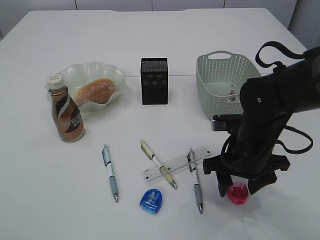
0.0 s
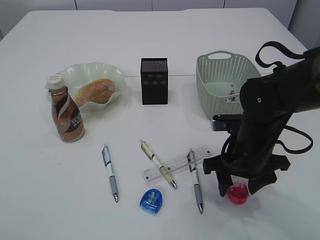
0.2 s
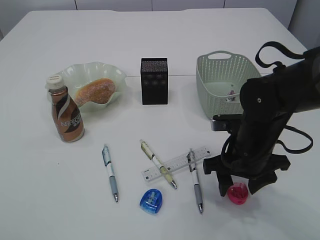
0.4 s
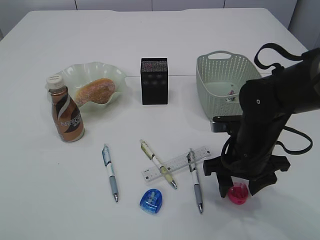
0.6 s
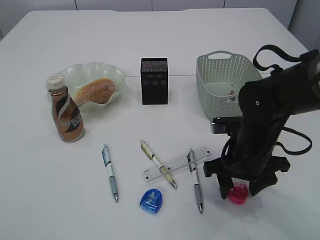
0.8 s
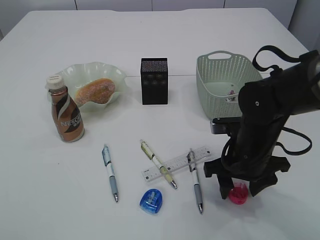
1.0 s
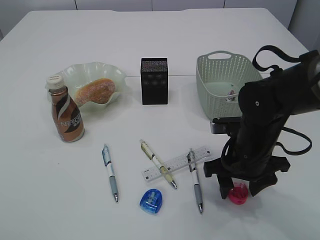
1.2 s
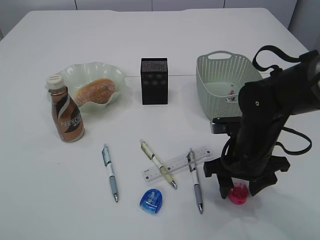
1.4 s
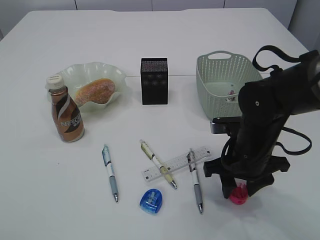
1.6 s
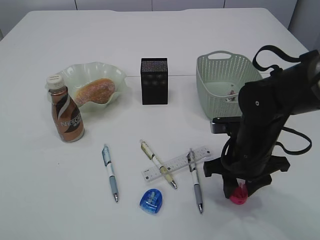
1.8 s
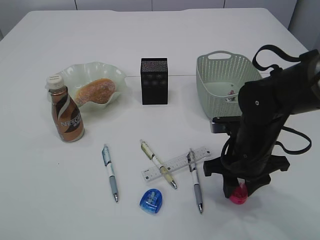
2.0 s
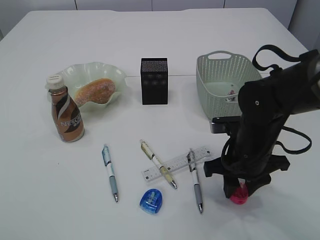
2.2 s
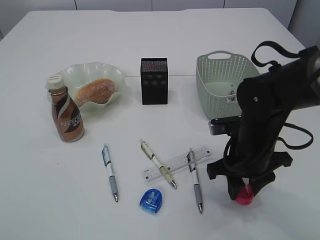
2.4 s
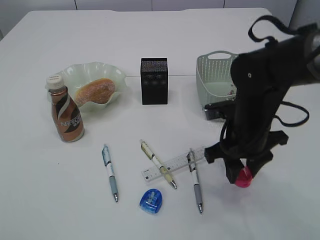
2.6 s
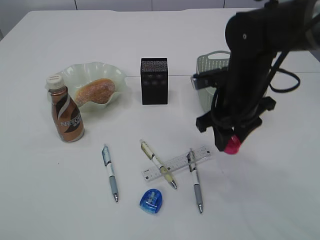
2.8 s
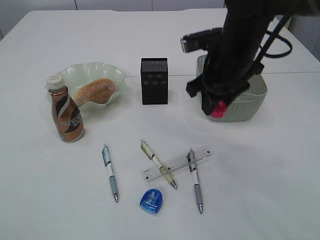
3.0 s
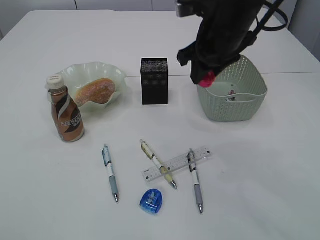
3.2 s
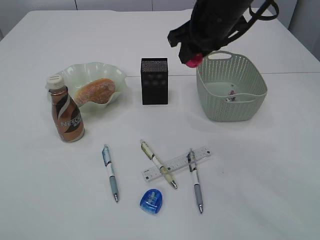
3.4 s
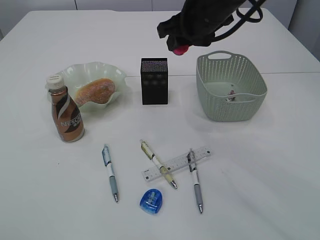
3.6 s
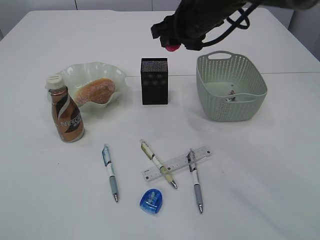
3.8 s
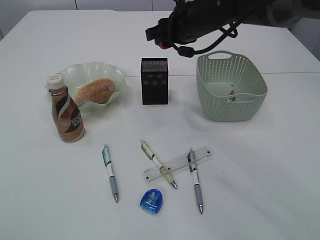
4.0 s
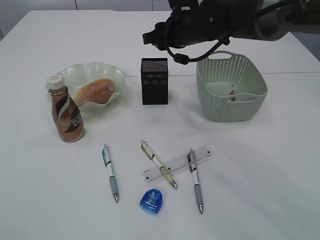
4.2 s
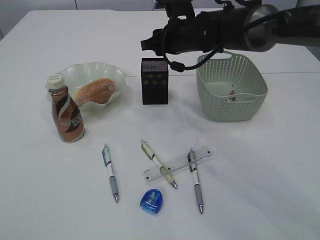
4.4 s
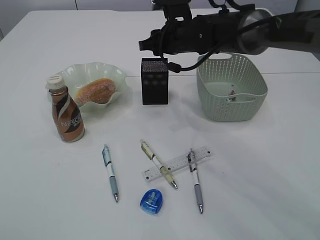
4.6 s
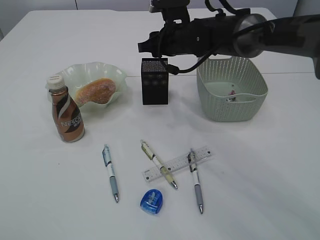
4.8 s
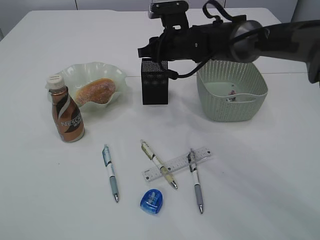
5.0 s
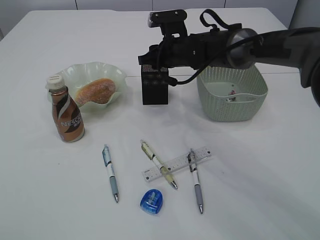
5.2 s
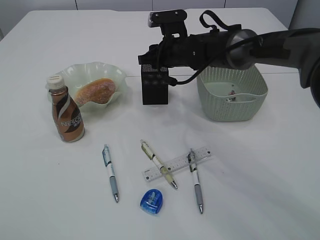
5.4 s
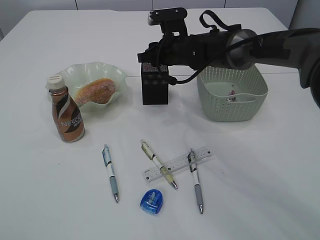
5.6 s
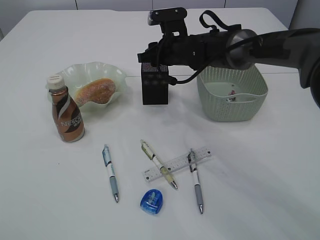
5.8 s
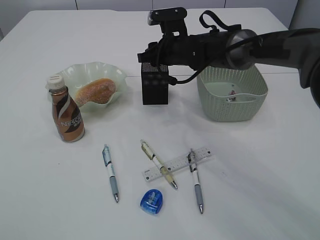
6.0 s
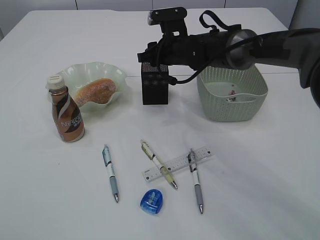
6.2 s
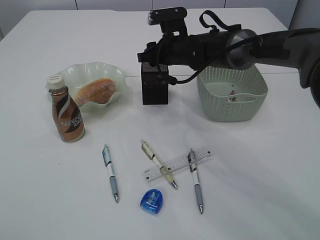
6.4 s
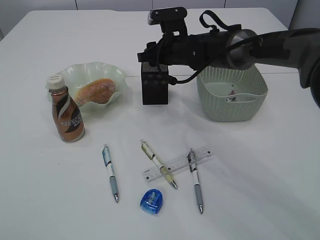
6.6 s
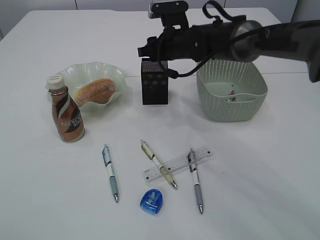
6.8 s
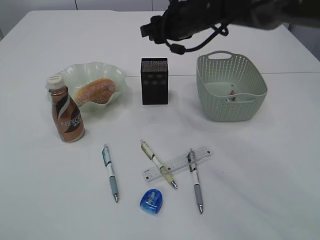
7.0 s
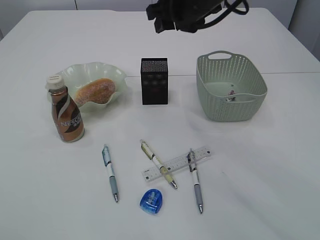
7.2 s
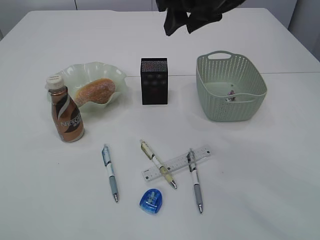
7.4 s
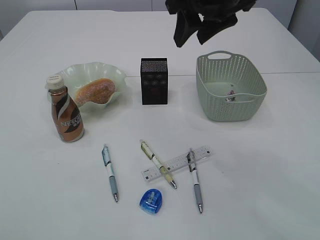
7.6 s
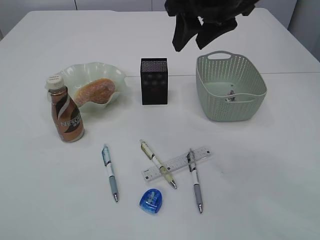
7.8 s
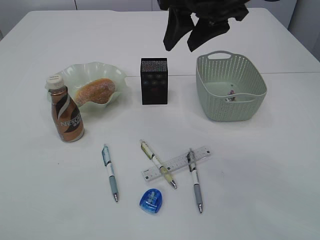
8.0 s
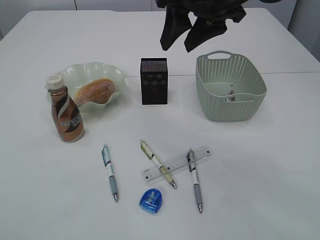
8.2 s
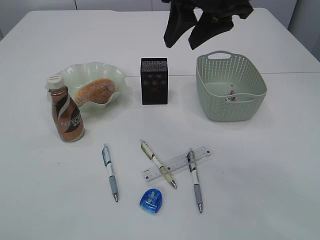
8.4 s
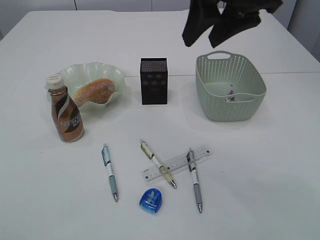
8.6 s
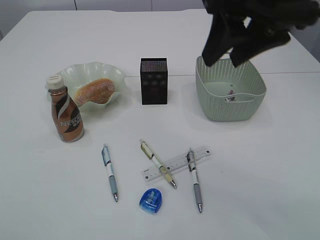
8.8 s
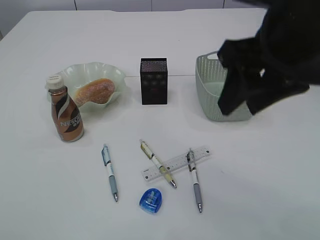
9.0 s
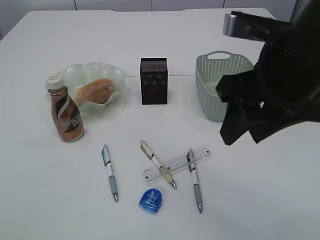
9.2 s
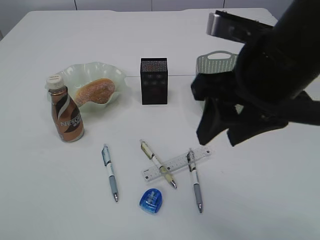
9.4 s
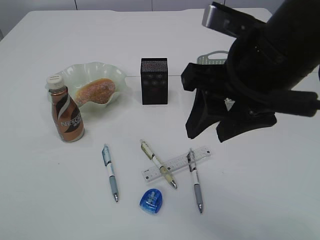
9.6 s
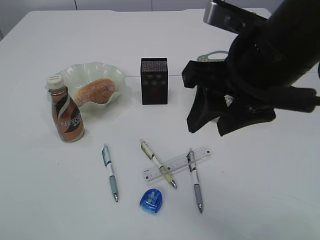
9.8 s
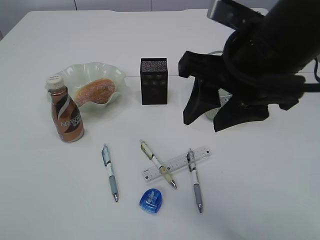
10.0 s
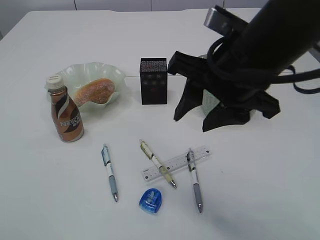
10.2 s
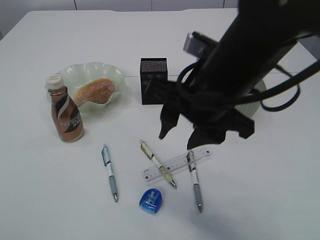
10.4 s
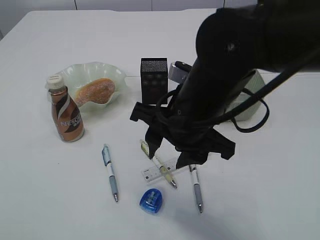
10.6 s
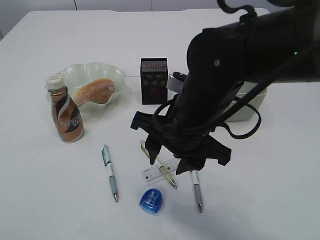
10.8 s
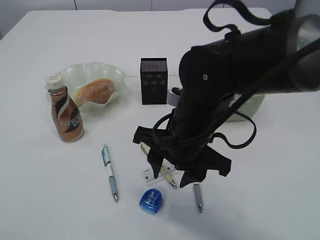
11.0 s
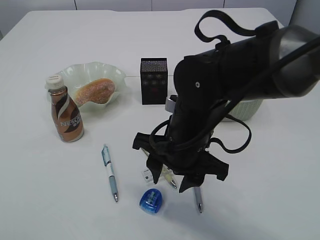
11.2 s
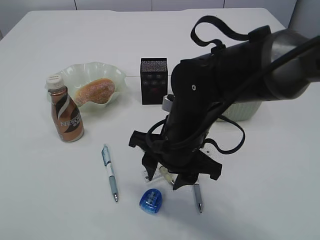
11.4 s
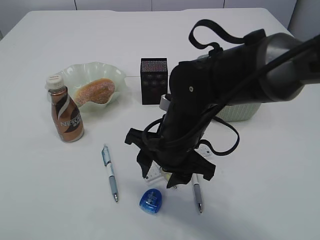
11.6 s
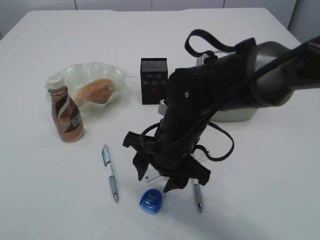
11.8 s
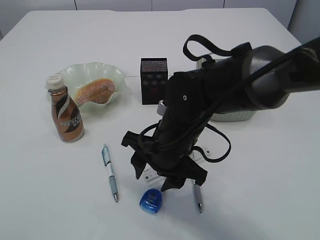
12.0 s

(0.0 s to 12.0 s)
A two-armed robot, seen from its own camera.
Step, 0.0 s - 2.6 s: Pick up the red pencil sharpener.
Step, 2.8 s - 6.8 s: Place the red pencil sharpener into the pen holder.
0.0 s - 1.6 s: The two grippers keep their place.
1.6 s - 3.0 s: The right gripper heads upward and forward, covering some 15 cm.
3.0 s - 4.4 s: The right gripper heads forward and to the left, covering some 15 cm.
4.4 s - 6.0 s: The grippers move only a little.
6.0 s - 7.6 s: The right gripper shifts about 20 cm upward and backward.
7.6 s - 9.0 s: The right gripper shifts approximately 10 cm backward.
9.0 s - 10.4 s: The right gripper heads to the left and downward, covering approximately 10 cm.
10.4 s - 12.0 s: The right gripper shifts some 15 cm downward and to the left.

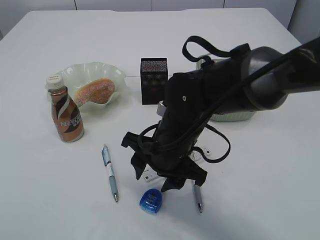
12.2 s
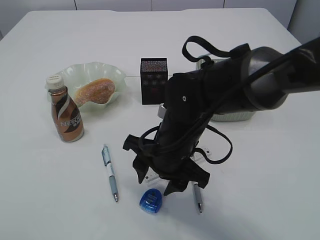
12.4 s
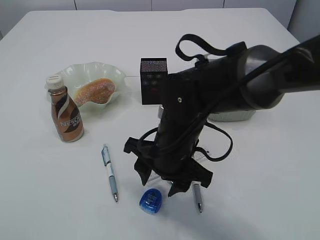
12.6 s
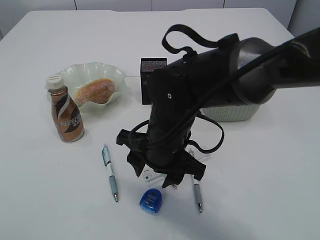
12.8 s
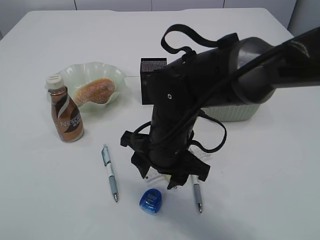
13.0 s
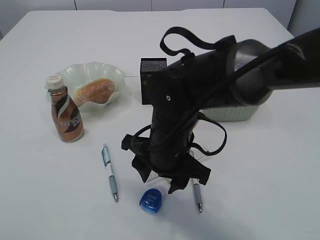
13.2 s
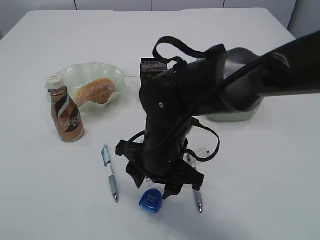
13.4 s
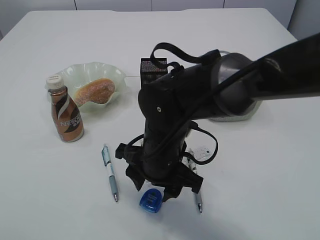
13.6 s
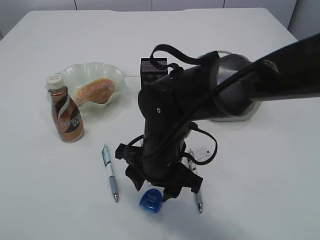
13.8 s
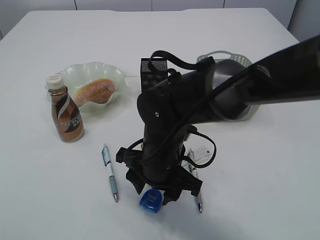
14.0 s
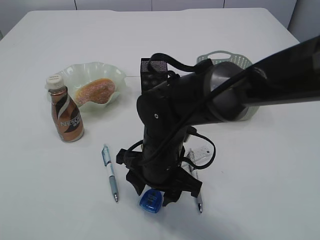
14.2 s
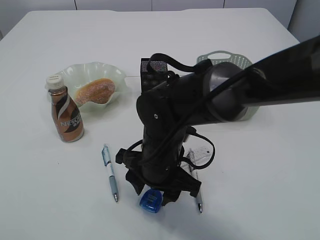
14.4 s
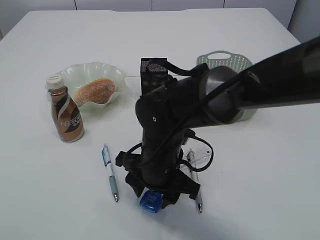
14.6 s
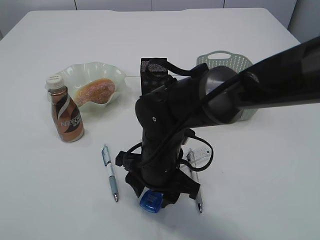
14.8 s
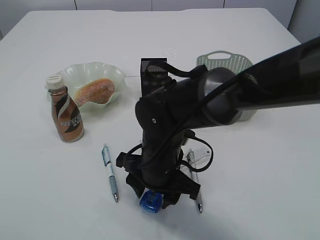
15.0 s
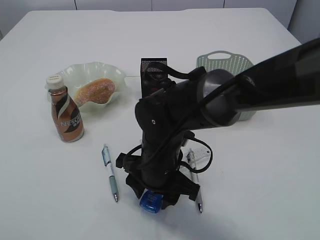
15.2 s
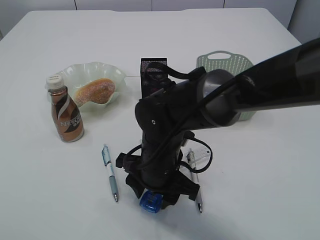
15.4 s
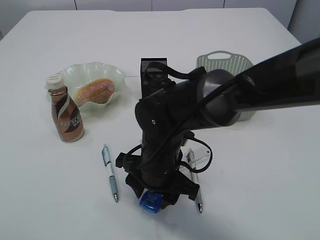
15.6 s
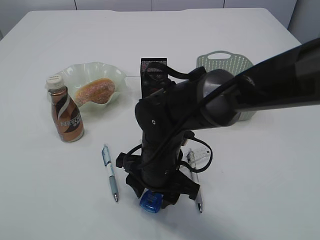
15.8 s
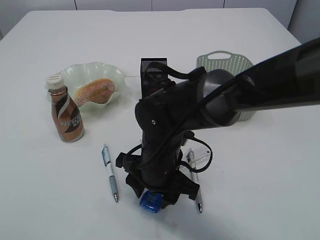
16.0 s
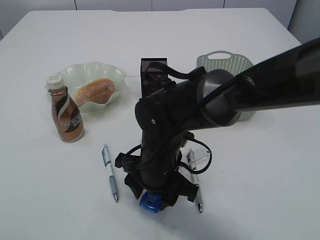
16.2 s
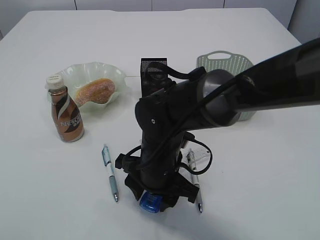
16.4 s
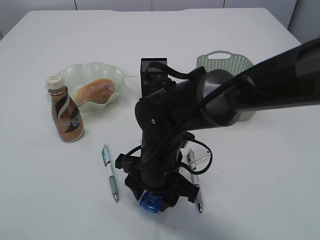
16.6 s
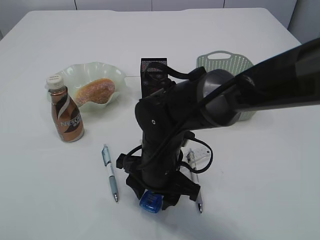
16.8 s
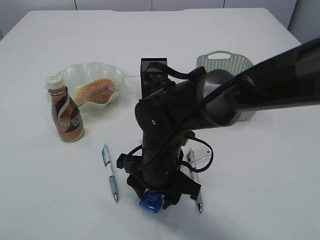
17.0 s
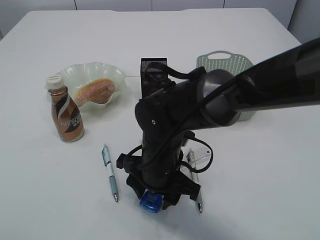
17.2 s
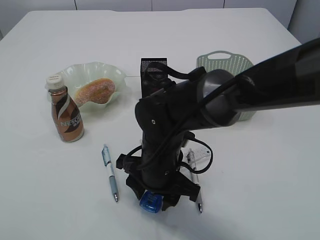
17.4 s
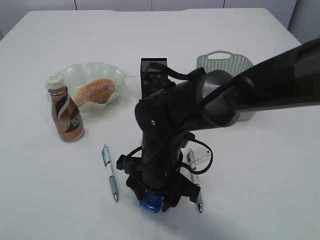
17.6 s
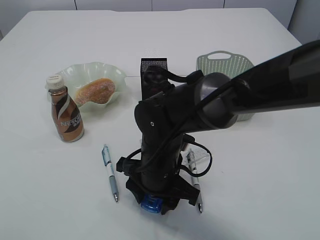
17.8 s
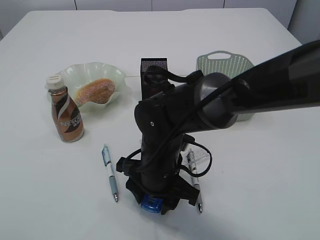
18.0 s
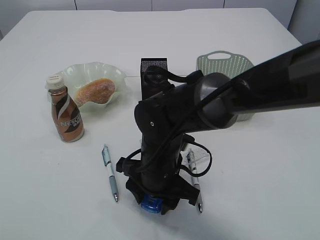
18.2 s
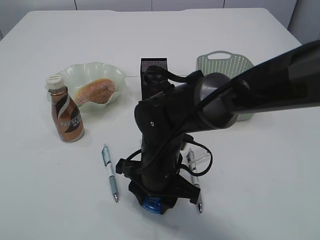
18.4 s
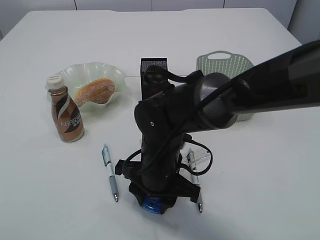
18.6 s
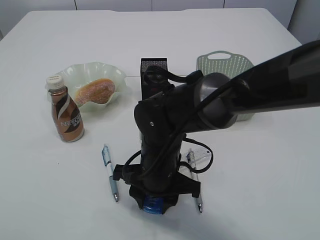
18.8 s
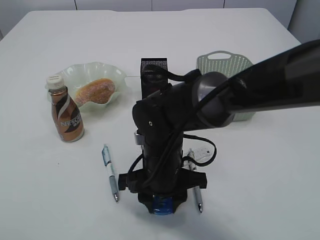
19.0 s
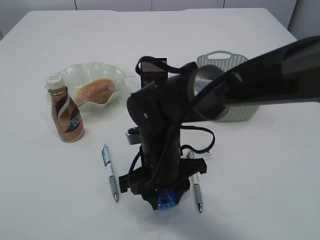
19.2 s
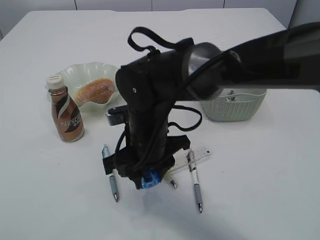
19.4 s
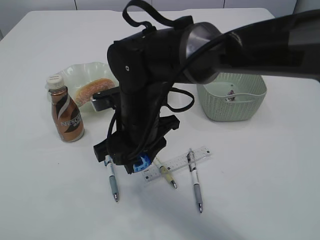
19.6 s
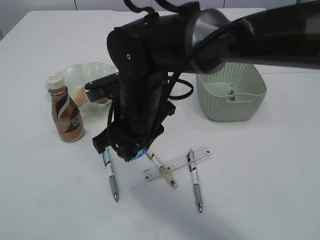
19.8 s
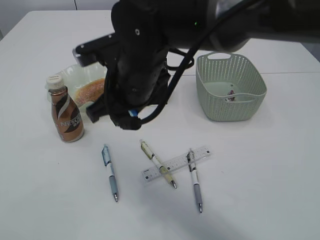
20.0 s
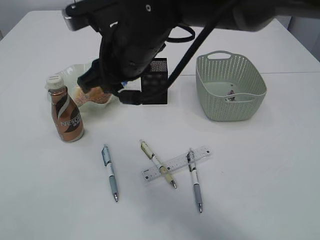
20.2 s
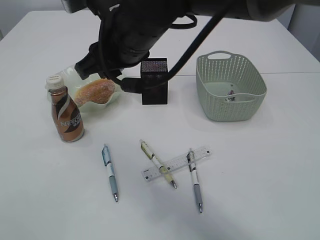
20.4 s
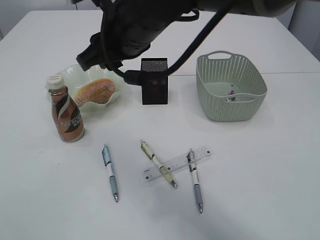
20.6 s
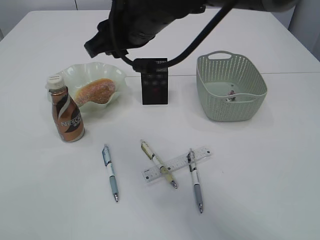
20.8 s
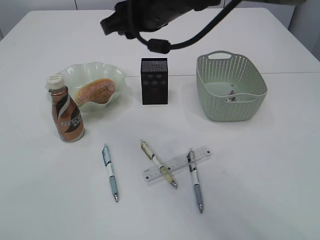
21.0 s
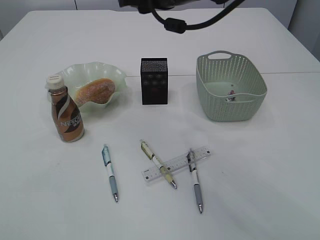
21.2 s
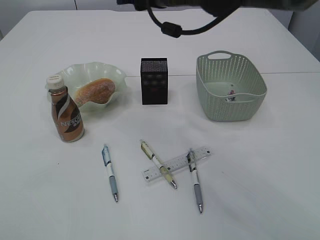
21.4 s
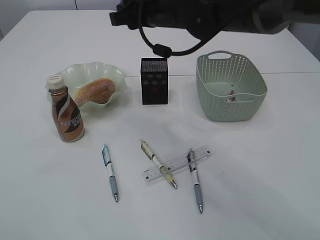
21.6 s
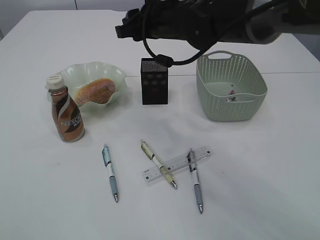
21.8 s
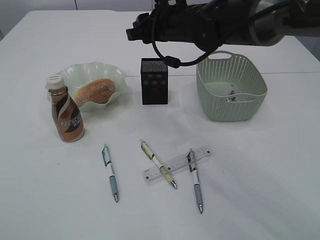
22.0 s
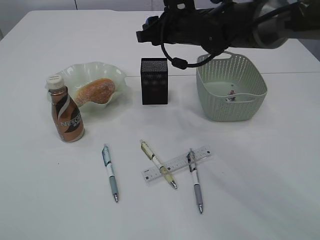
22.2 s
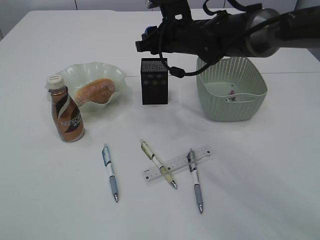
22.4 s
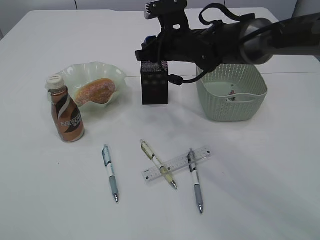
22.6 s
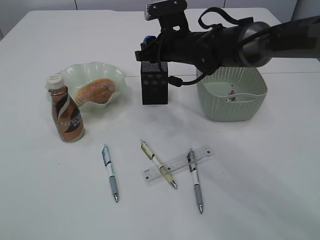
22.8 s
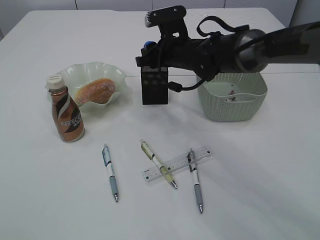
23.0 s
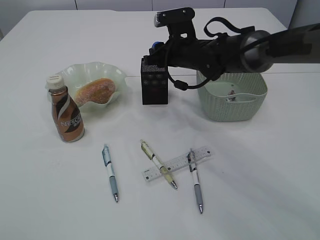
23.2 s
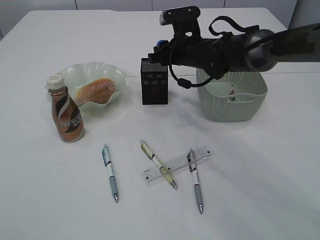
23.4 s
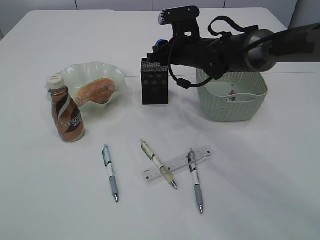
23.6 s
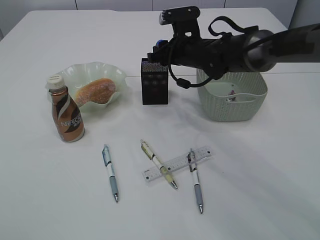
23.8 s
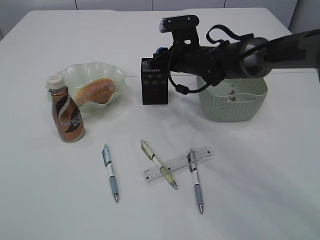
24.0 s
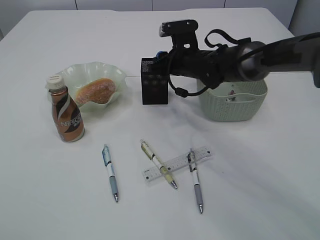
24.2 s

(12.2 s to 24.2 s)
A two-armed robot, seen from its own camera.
Step, 12.2 s - 19.6 s: Pick up the blue pencil sharpener.
12.2 s - 15.2 s: The grippers stay close to where they were, moving slightly.
15.2 s - 18.2 s: The two grippers keep their place.
18.2 s - 19.8 s: The right gripper is displaced upward by about 10 cm.
19.8 s - 21.2 s: The right gripper is displaced upward, forward and to the right by roughly 15 cm.
21.2 s - 22.6 s: The right gripper is displaced downward and forward by about 15 cm.
22.6 s - 24.2 s: The right gripper moves about 5 cm.
